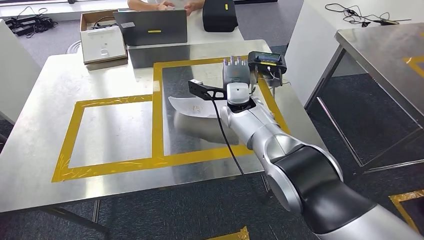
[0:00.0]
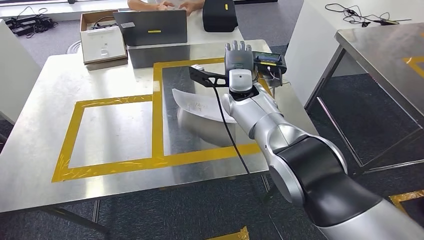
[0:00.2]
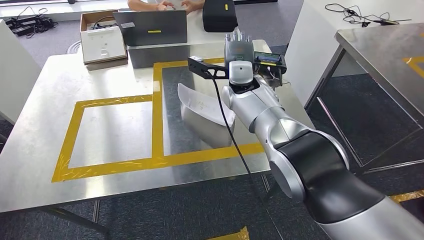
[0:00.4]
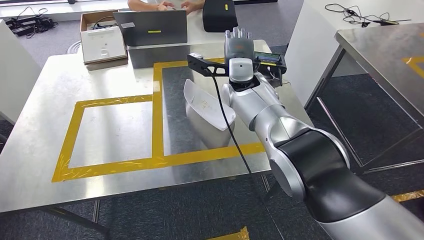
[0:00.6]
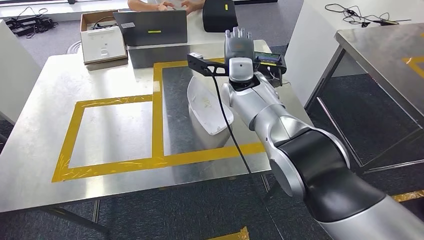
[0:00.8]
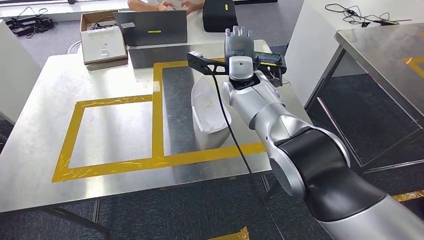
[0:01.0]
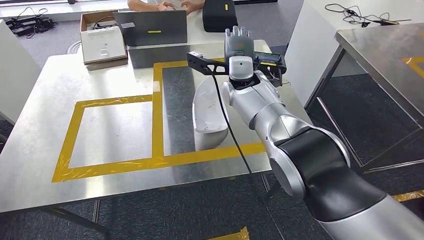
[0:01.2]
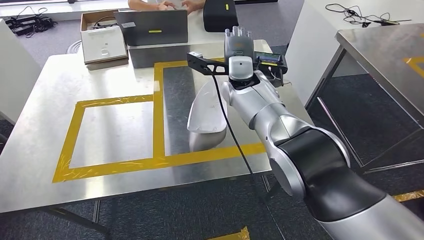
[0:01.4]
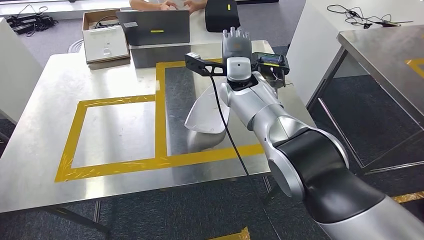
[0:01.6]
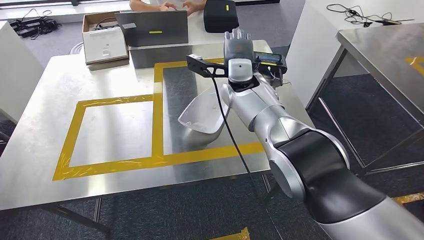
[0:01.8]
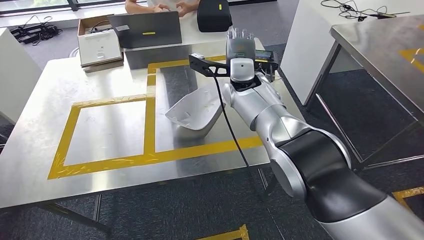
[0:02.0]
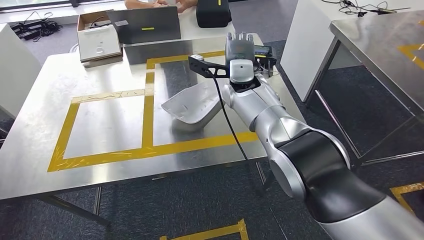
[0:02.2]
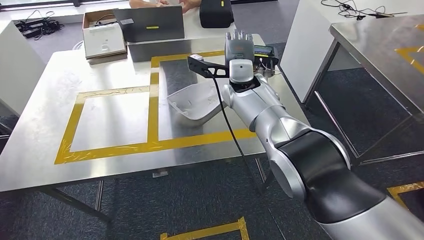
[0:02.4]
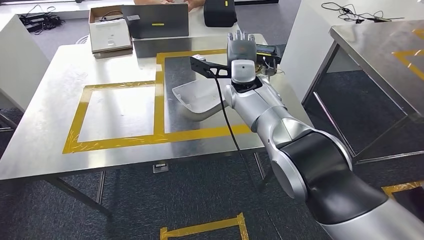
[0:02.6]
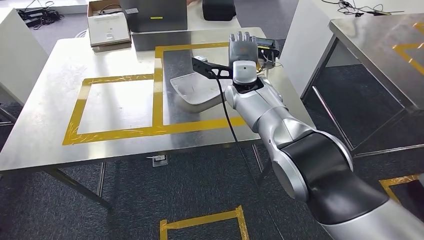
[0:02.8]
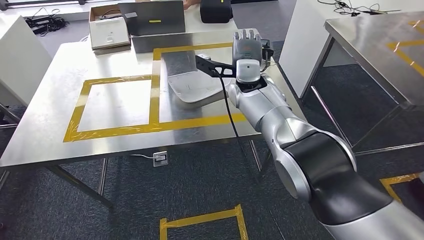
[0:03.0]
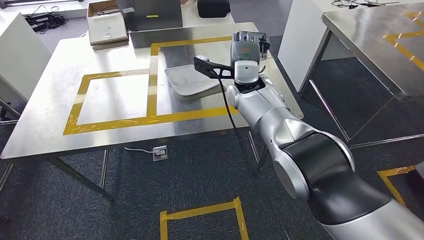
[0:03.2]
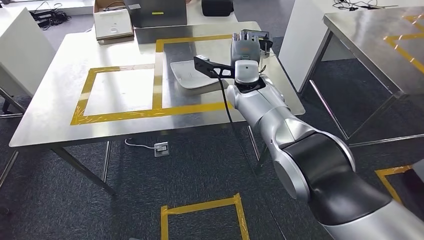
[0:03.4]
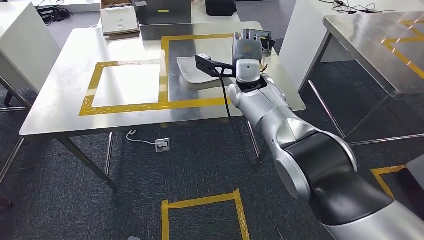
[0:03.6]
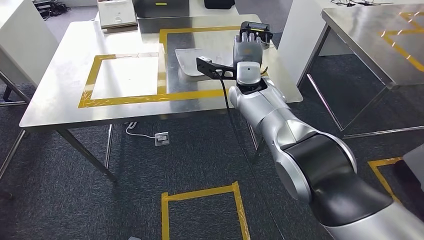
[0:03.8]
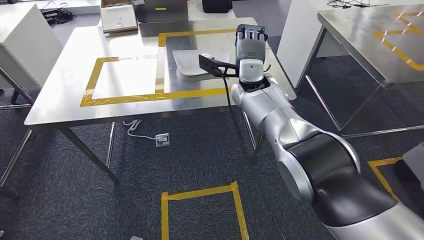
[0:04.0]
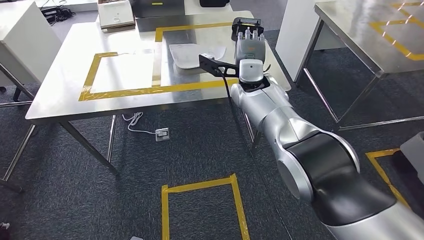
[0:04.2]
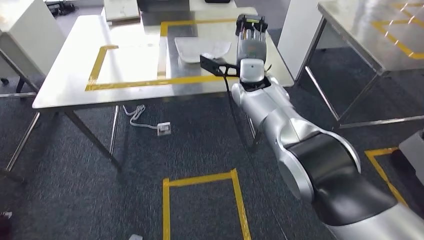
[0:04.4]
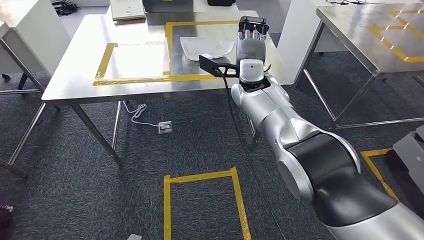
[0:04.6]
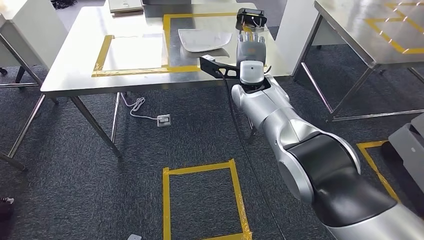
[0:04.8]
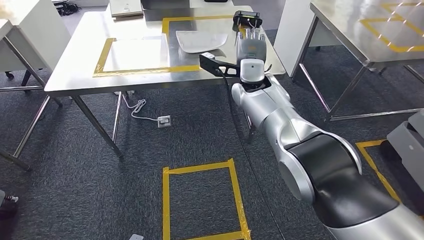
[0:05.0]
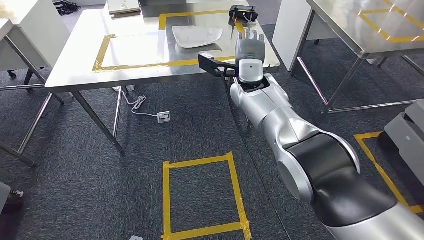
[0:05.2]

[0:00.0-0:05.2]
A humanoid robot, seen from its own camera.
Step, 0:00.0 to 0:05.2: Return to the initial position at the workbench.
